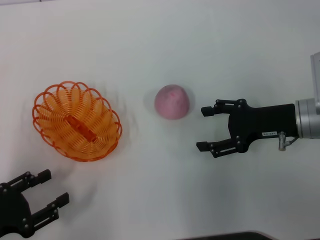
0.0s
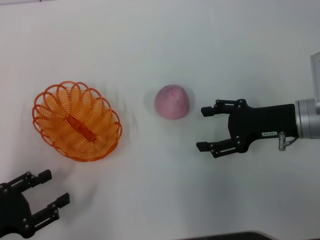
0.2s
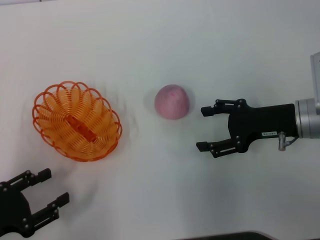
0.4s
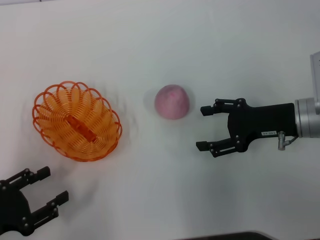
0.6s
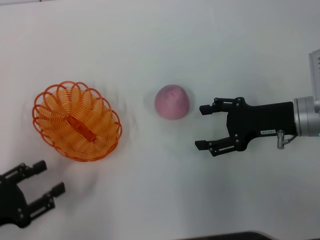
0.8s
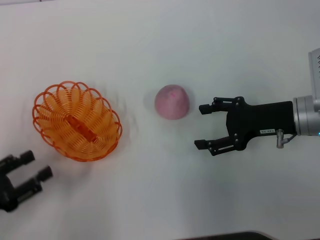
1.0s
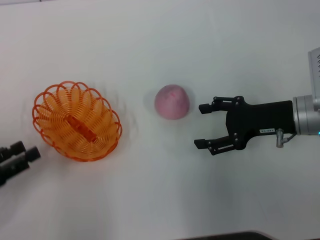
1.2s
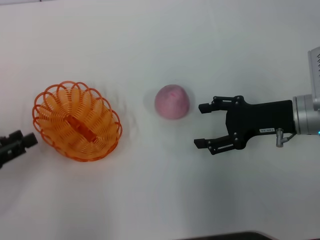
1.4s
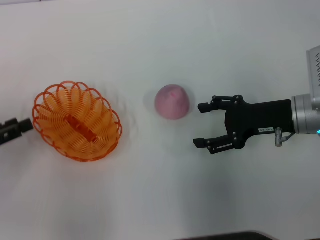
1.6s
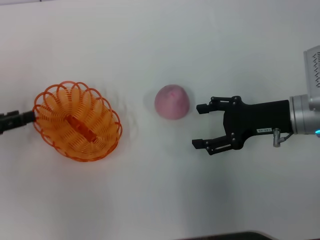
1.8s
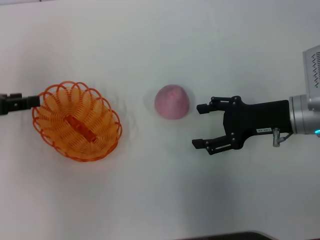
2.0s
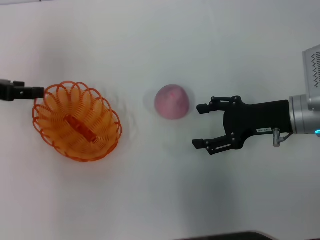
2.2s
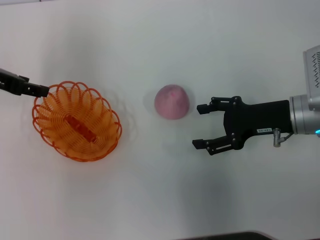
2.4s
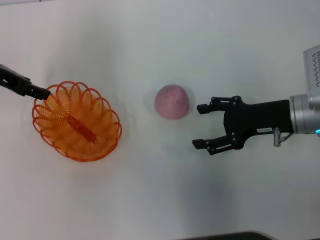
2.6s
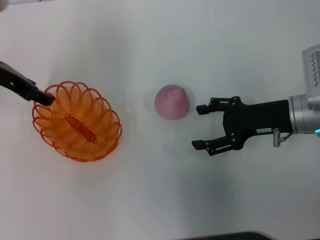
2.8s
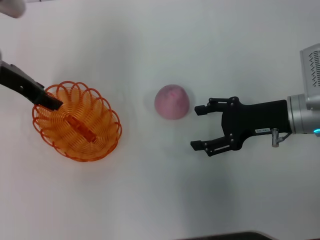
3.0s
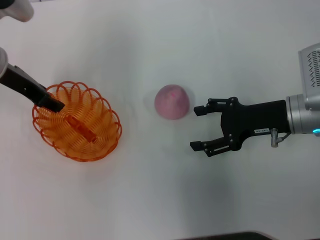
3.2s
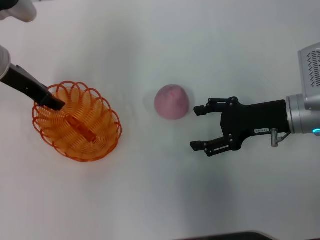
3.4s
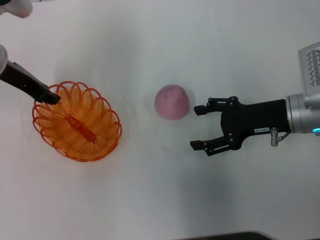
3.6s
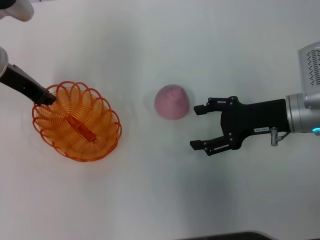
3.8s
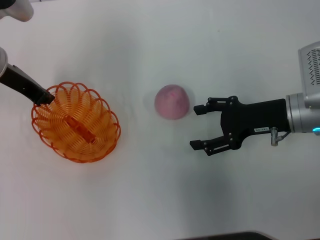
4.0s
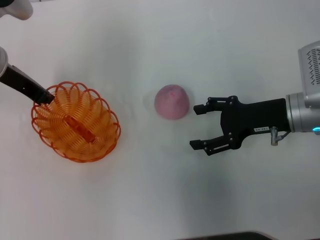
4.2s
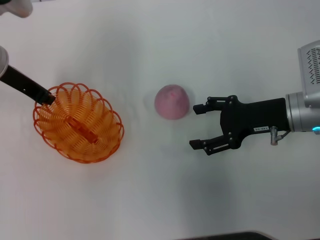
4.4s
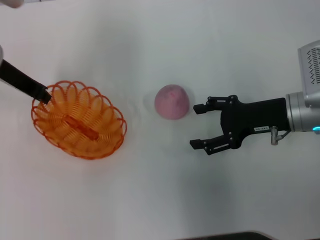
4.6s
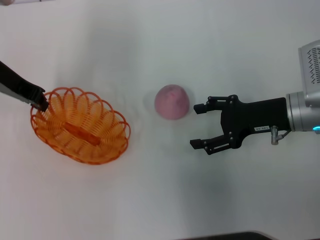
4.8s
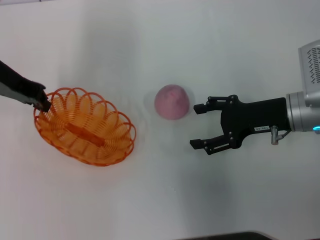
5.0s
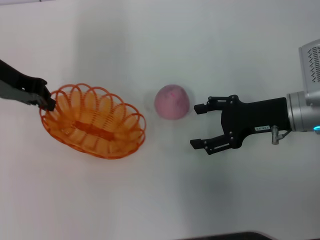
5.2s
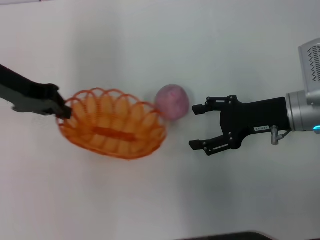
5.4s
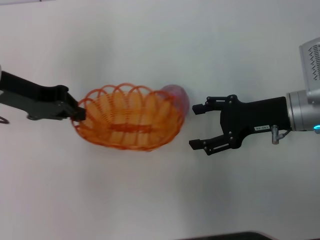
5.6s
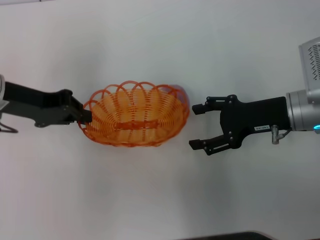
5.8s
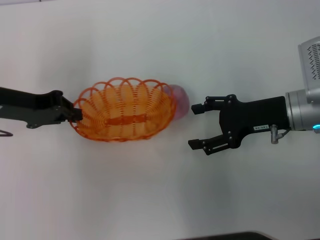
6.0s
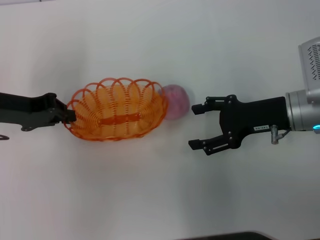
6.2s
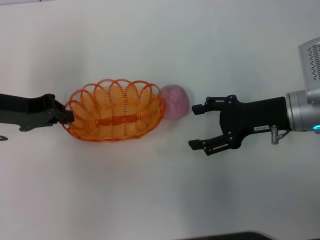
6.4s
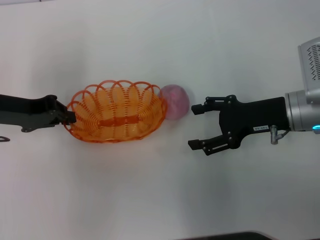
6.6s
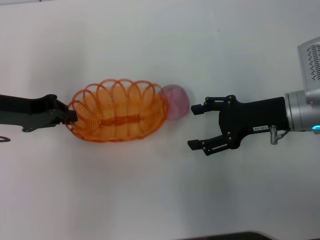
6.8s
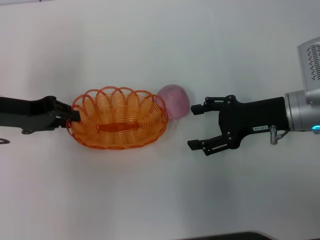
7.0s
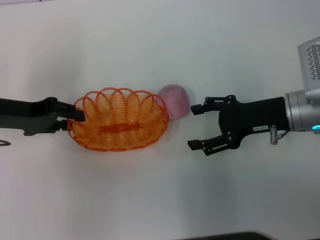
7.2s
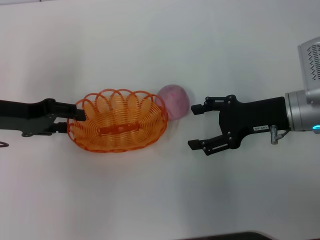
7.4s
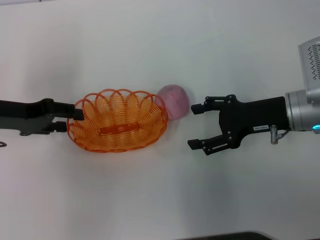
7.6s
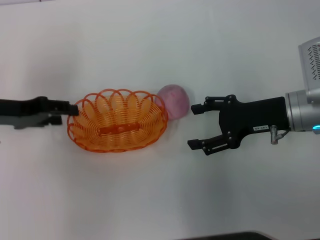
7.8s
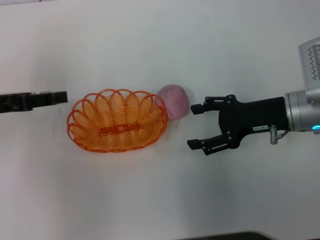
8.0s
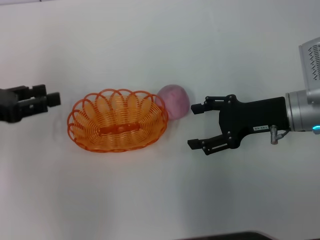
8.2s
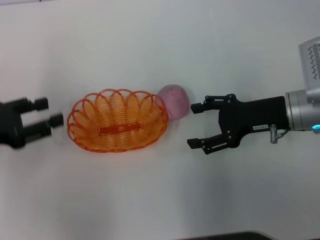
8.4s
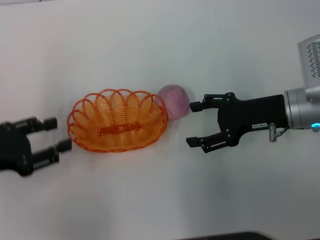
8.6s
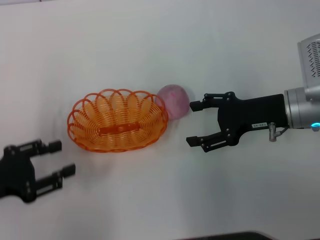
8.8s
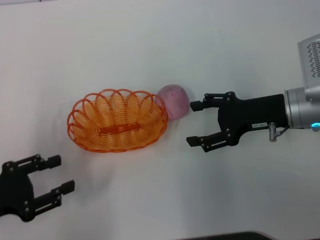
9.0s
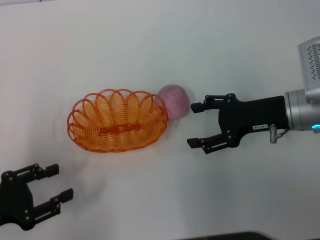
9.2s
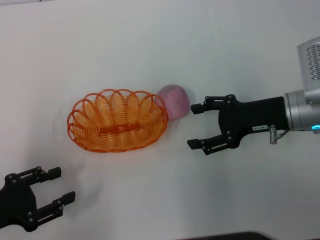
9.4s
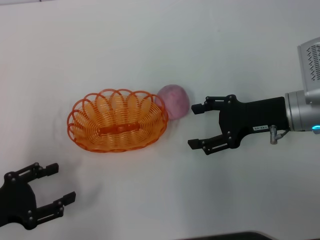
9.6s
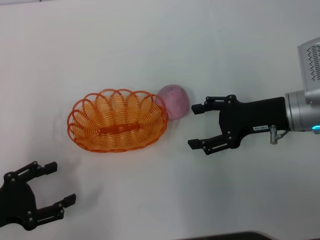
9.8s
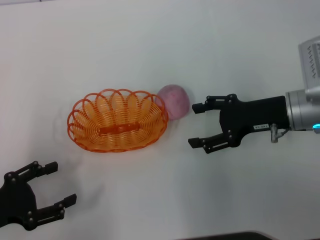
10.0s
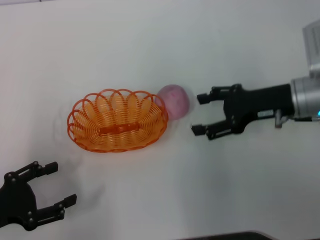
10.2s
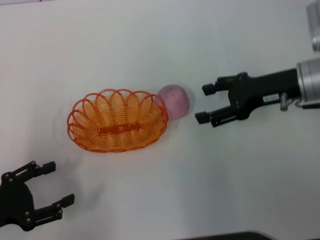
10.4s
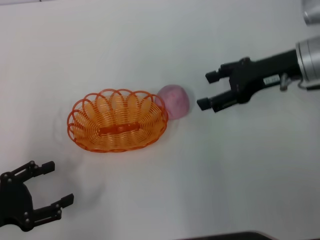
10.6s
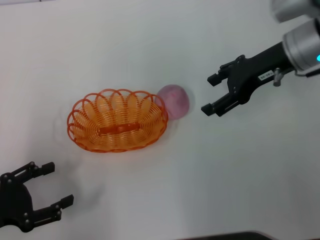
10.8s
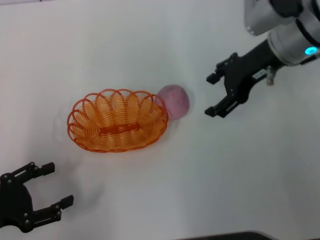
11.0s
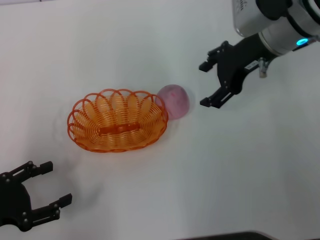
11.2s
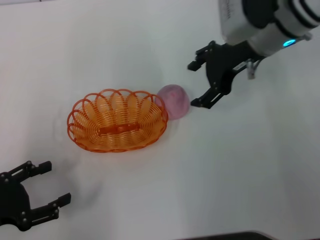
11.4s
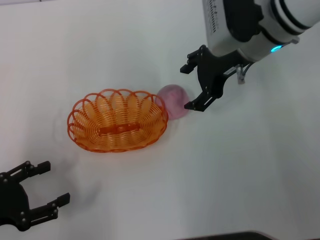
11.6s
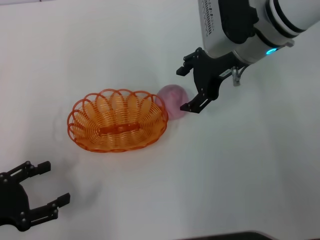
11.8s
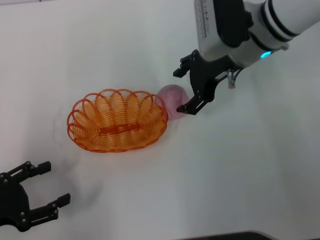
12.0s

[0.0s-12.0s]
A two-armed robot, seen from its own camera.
Step, 0.0s to 5.0s: Pick up the basket with the left gripper.
Step, 5.2s to 8.0s: Place the basket in the center of view with the left gripper.
0.0s to 1.6s: The left gripper shifts roughly 10 cm forward.
1.6s to 3.0s: The left gripper shifts approximately 20 cm forward, to the right and upward.
3.0s to 4.4s: The left gripper closes its fingers.
4.4s to 6.0s: The left gripper goes some 5 cm backward.
6.0s to 7.6s: The left gripper opens up.
7.6s to 9.0s: The left gripper is displaced backward by roughly 15 cm.
9.0s to 10.4s: The grippers stay close to where they were, moving slightly.
10.4s to 12.0s: The right gripper goes roughly 10 cm to the left and forward.

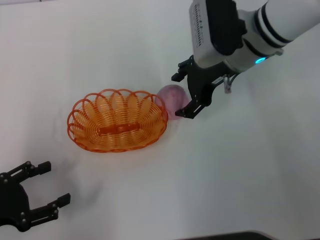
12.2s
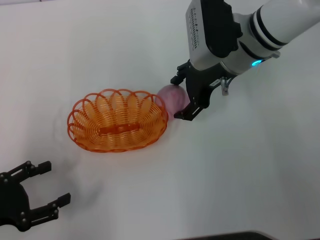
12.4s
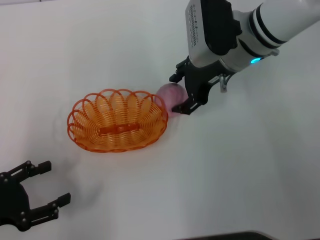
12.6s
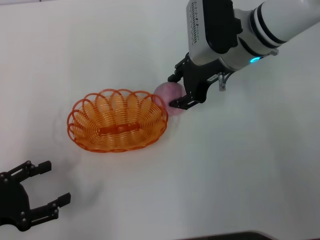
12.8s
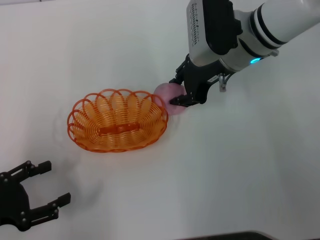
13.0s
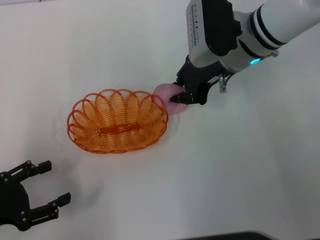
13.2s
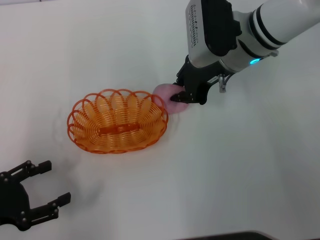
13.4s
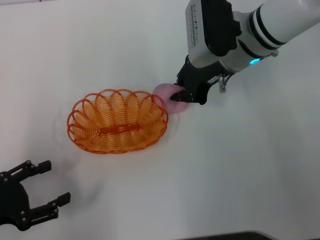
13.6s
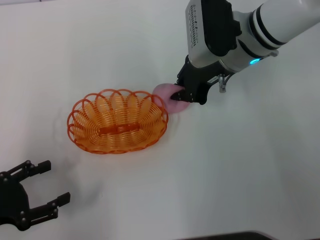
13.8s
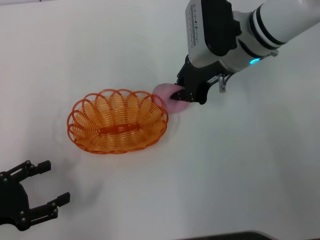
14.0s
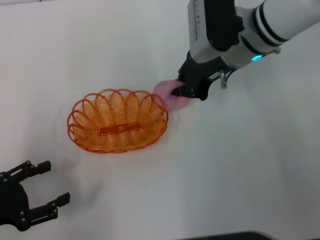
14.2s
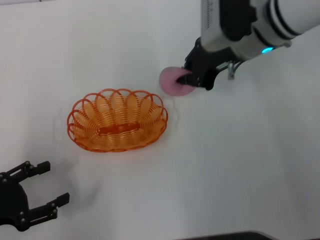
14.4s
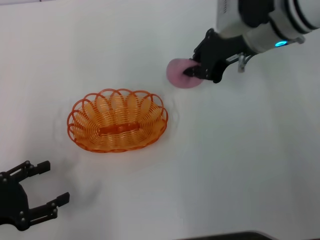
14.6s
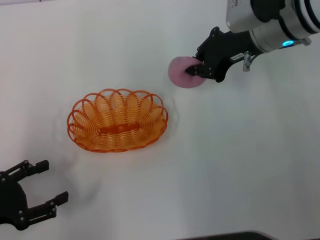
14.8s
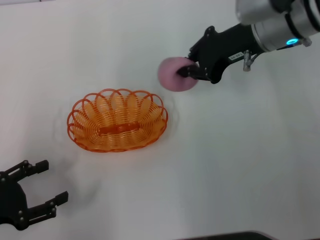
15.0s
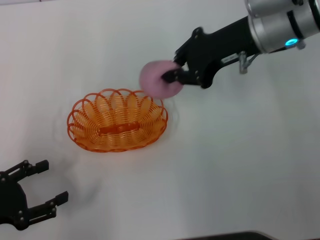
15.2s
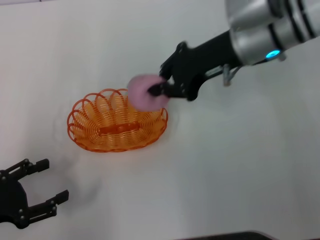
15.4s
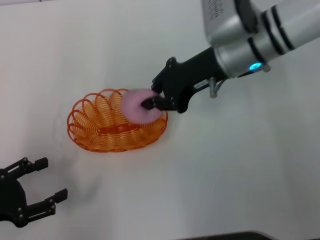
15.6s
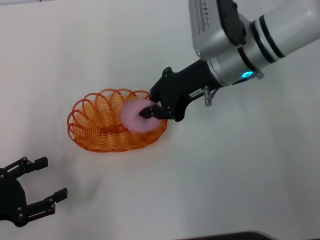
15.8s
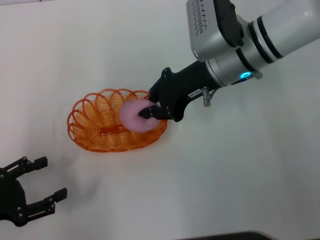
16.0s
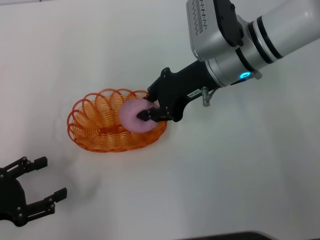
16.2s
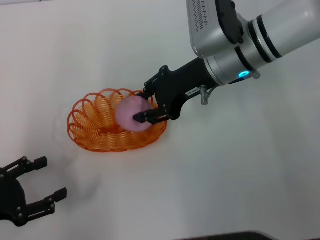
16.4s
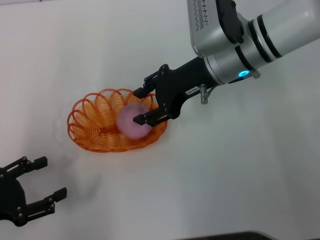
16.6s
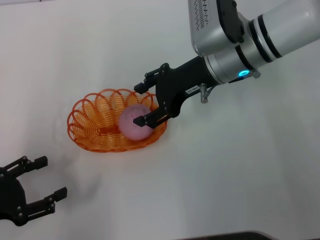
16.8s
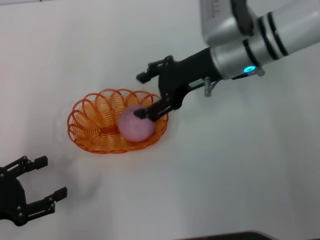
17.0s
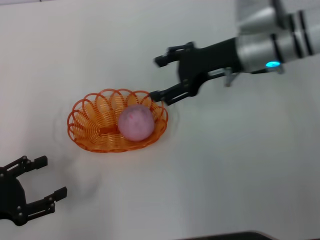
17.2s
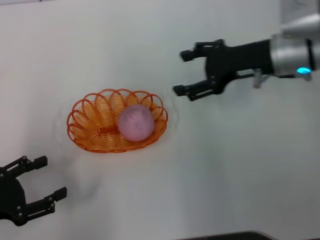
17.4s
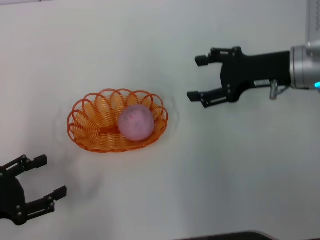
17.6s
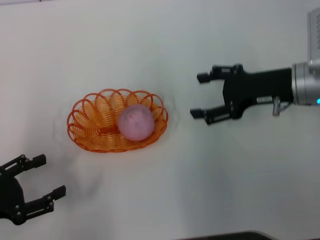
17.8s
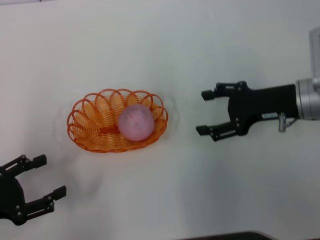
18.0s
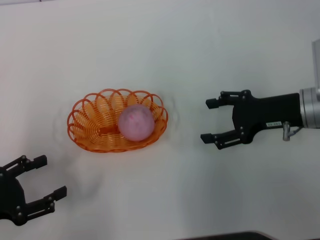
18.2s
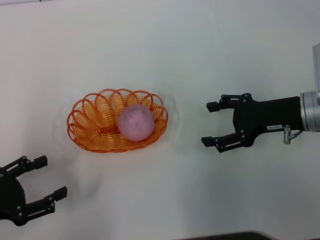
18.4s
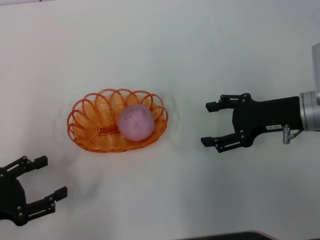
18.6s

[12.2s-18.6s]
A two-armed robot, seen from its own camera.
Step, 12.2s to 15.0s: Pick up the peach with the right gripper.
Step, 15.2s to 17.2s: Place the peach into the basket with the right gripper.
12.2s to 13.8s: The right gripper closes.
15.4s to 17.0s: The right gripper opens its fingers.
17.0s to 18.6s: The right gripper moves to the right, backward and downward, about 15 cm.

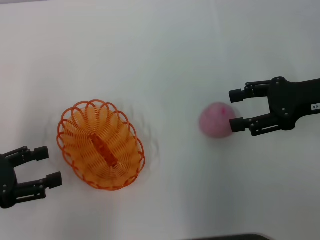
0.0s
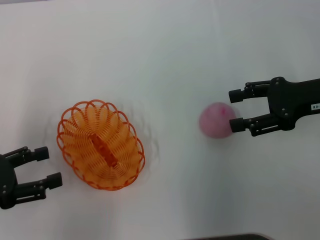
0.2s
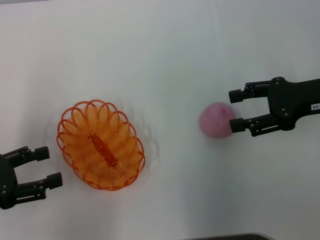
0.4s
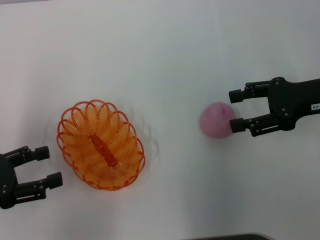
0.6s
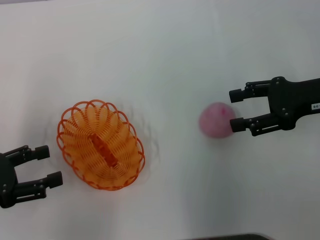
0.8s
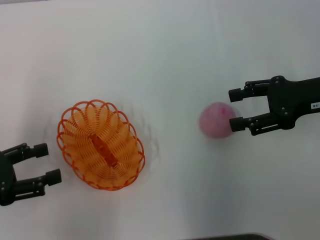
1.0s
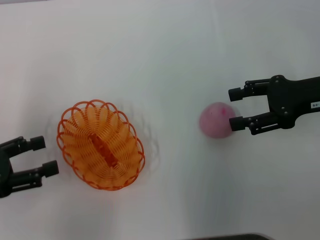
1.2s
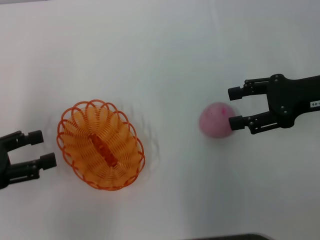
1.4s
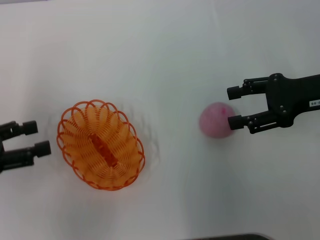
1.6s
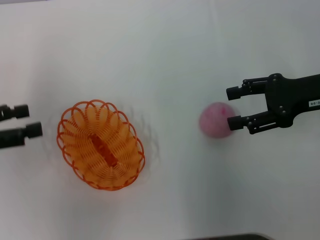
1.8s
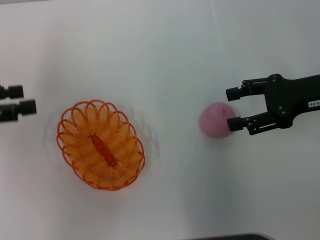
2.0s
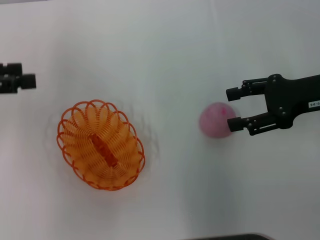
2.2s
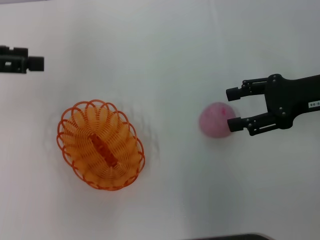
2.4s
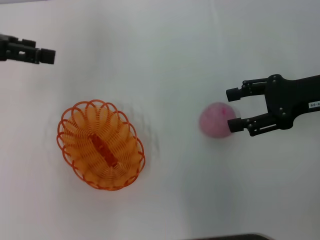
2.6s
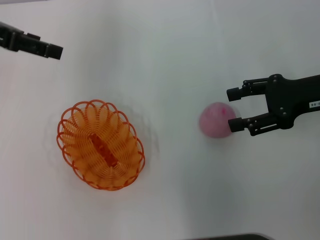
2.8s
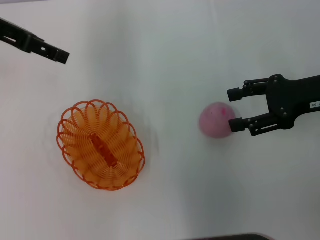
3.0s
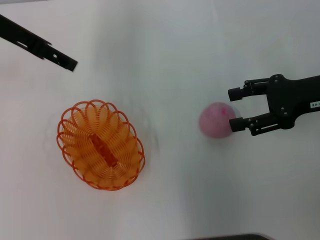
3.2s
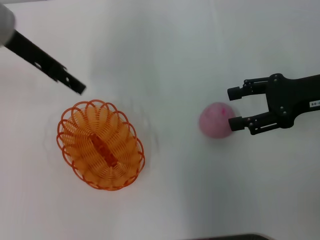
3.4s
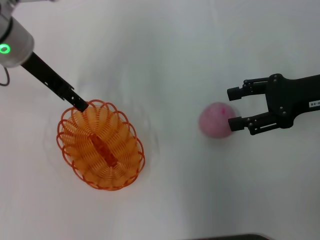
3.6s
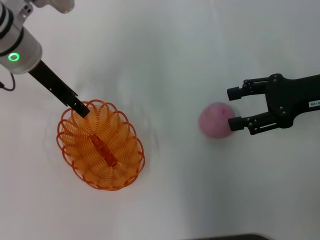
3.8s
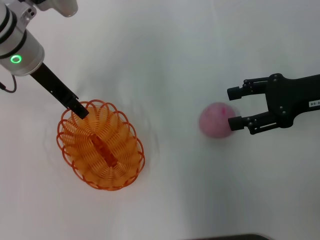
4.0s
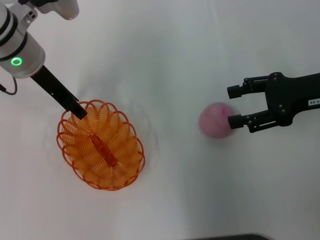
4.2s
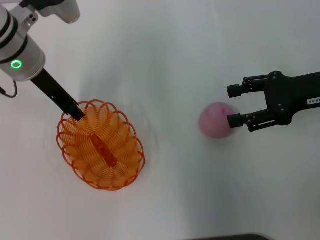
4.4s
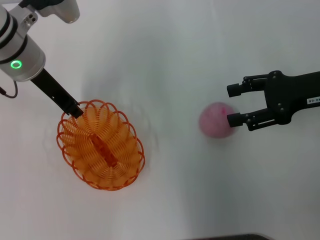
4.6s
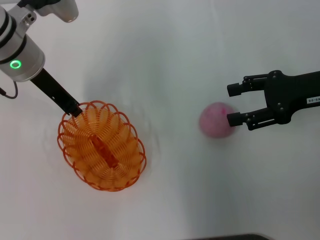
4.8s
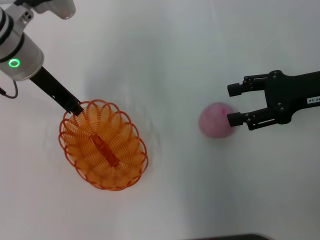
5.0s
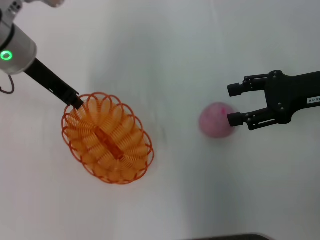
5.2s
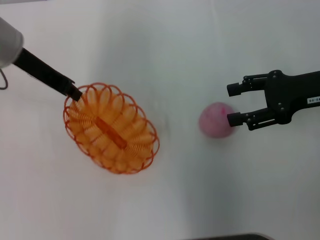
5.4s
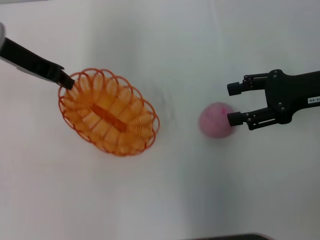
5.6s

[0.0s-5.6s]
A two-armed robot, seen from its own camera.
Step, 0.0s to 5.4s: Pick up the basket with the left gripper.
0.0s to 1.4s: The grippers make only small movements.
1.4s to 2.8s: The left gripper shifts roughly 20 cm forward and upward.
2.8s to 4.2s: The left gripper shifts roughly 15 cm to the right and downward.
4.2s to 5.6s: The left gripper moves to the left, approximately 5 cm, and closes up.
